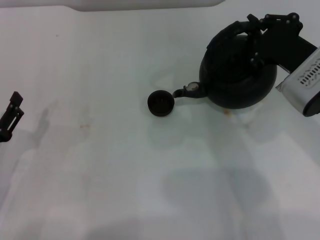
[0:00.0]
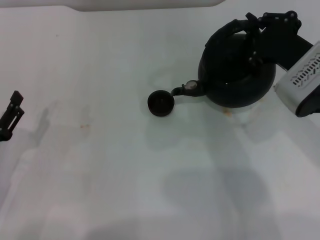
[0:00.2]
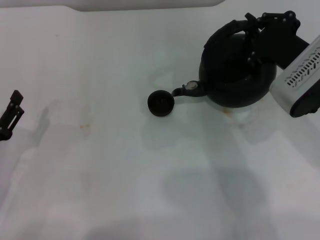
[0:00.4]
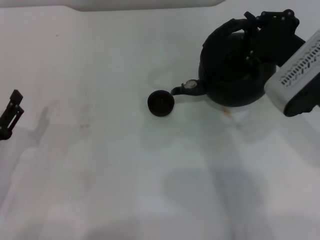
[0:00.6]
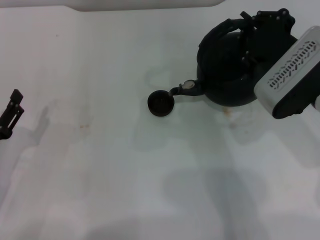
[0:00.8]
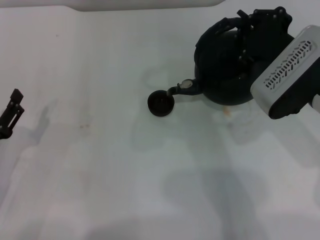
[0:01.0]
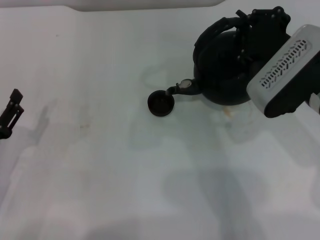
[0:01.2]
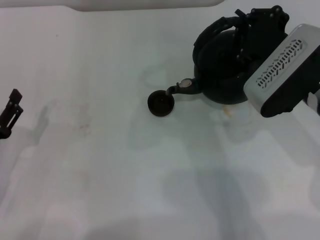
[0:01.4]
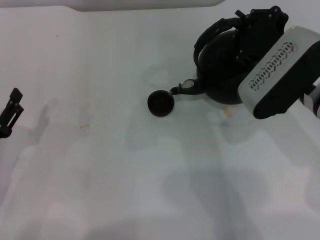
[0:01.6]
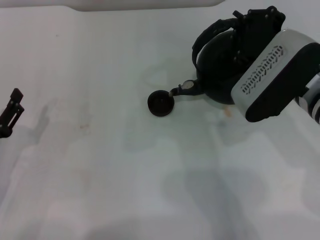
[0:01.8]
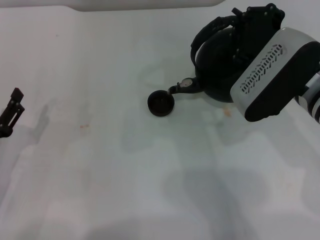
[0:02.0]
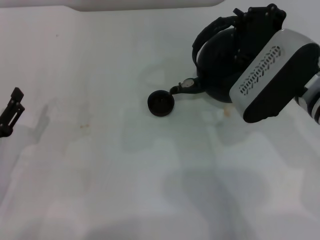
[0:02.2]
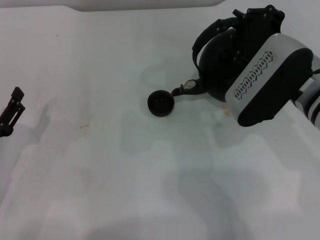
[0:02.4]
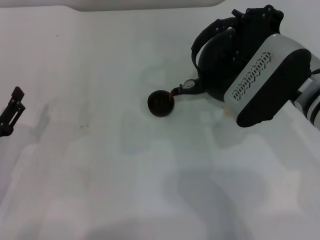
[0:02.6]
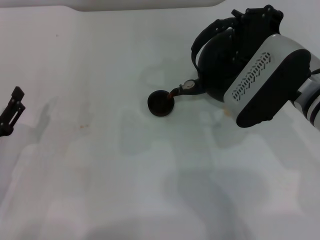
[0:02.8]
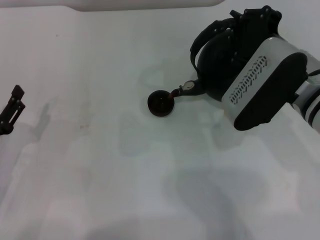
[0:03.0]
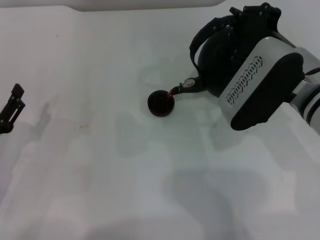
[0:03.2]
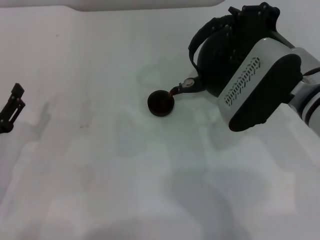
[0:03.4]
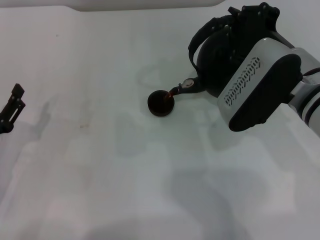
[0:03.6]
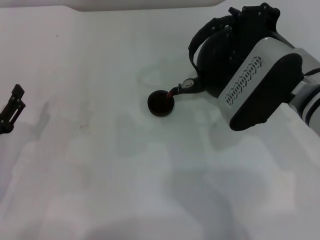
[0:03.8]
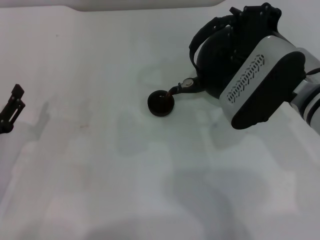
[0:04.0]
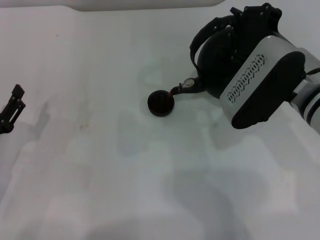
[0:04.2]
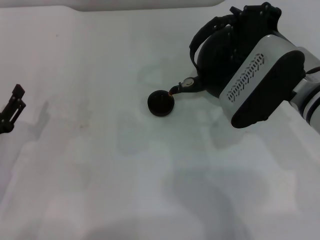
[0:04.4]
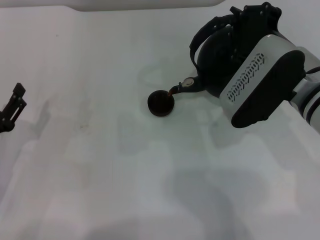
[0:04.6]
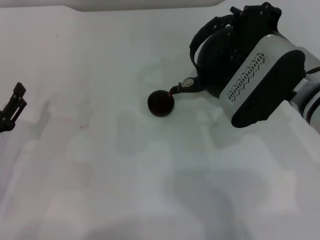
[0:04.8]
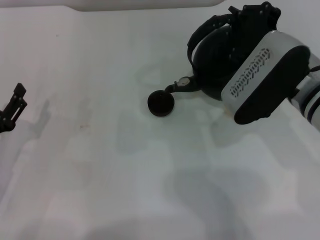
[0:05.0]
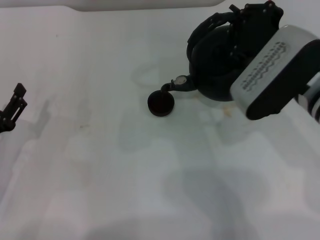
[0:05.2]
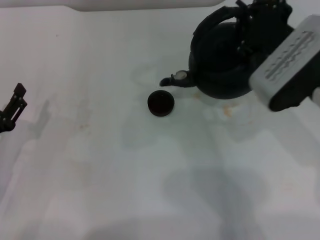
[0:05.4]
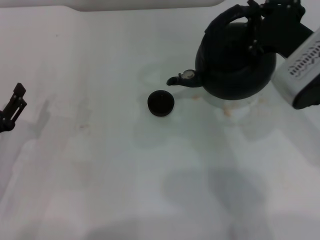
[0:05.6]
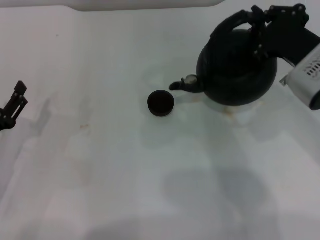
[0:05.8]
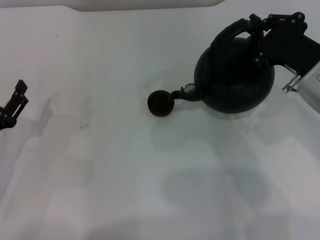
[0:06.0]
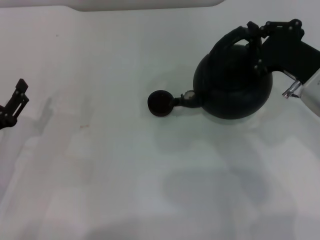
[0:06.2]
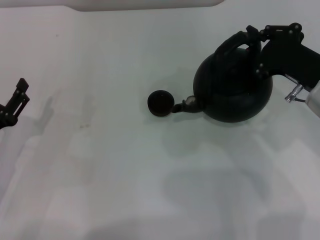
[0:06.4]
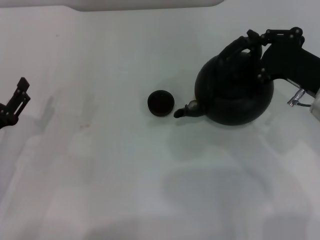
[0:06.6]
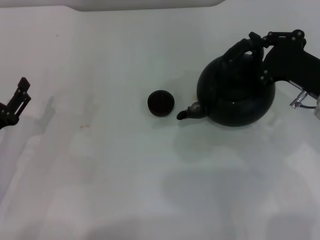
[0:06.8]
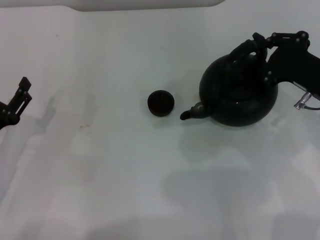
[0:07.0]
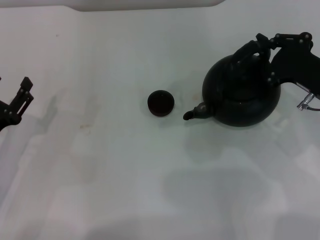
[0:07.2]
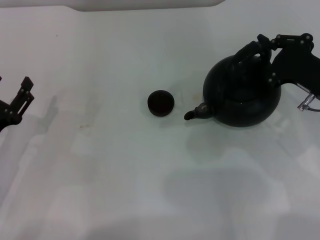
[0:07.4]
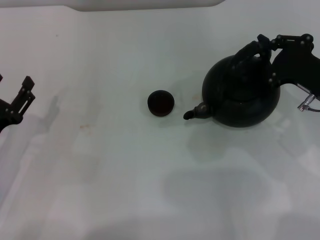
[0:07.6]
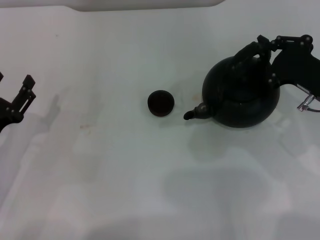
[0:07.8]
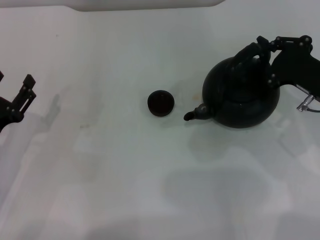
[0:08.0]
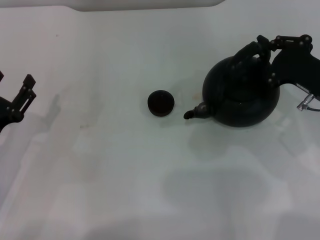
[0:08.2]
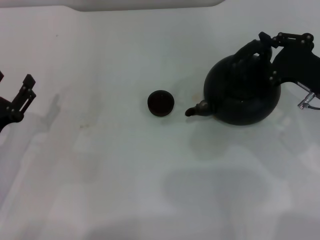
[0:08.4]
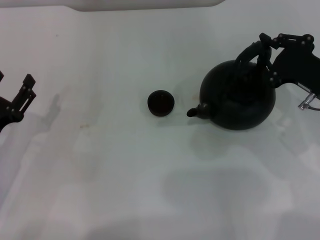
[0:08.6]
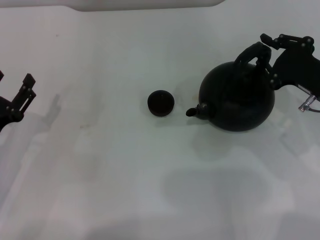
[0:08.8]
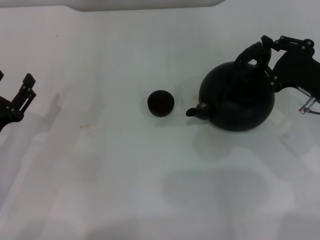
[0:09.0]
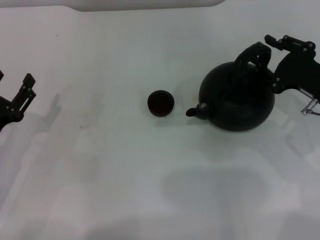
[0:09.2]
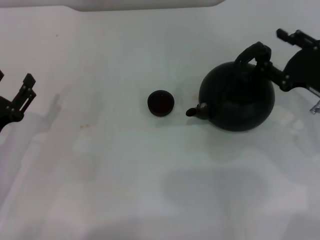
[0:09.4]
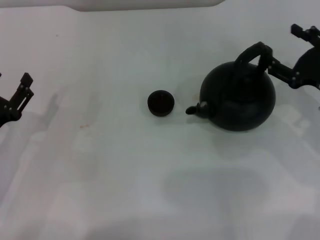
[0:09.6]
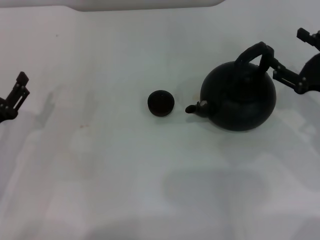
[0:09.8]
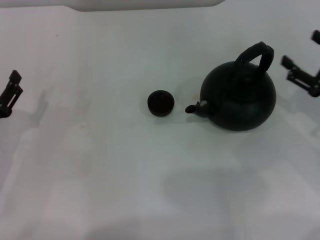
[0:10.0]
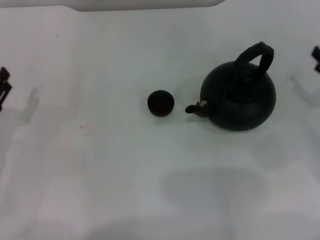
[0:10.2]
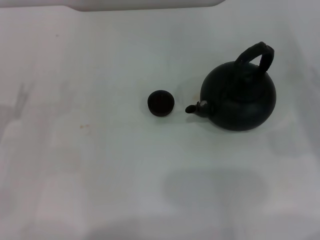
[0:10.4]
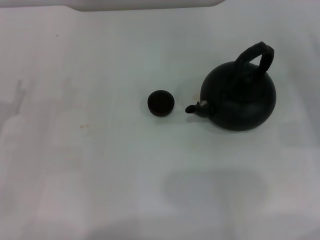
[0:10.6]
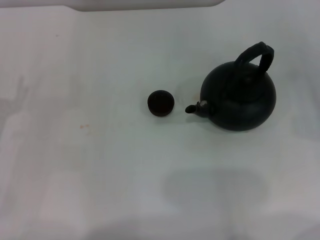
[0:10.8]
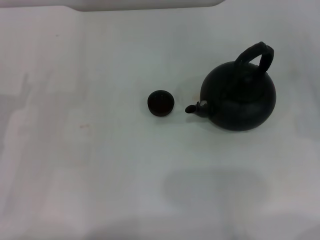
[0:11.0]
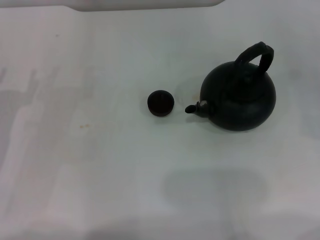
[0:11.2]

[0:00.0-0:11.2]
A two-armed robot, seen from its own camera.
Task of the whole recording: Grasp the handle of the teapot with one hand and pour tea into the teacup.
Step, 0:00.0 to 0:05.4: Pour tea into the teacup with the right gripper.
Step, 0:05.6 to 0:09.8: Put down the teapot with the right gripper.
0:00.0 to 0:01.6: There are only small adjustments of the grippers.
0:01.6 to 0:03.2: There are only small adjustments of the grippers.
0:03.2 to 0:04.8: Neither gripper changes place.
0:04.8 to 0:06.4: The right gripper shifts some 10 cm to the right.
0:06.4 to 0:08.0: The grippers stay close to where they were, moving slightly.
0:08.0 to 0:09.6: The right gripper opens its fingers.
0:09.6 to 0:11.2: The right gripper goes some 15 cm to the right.

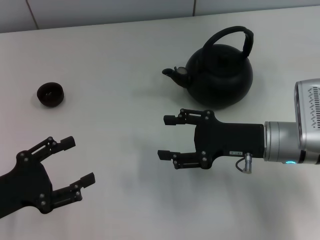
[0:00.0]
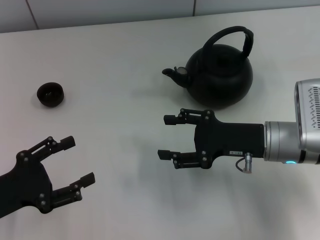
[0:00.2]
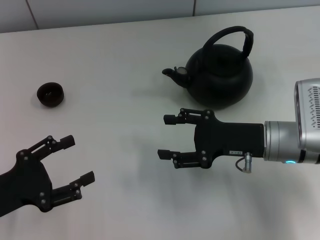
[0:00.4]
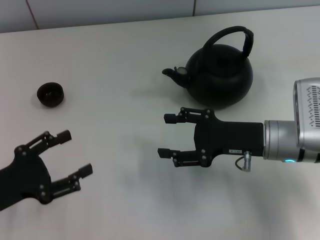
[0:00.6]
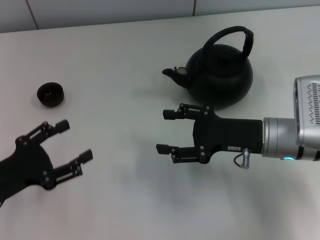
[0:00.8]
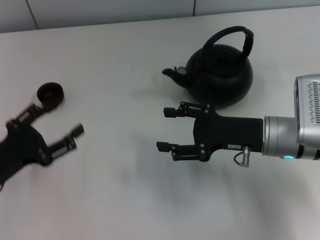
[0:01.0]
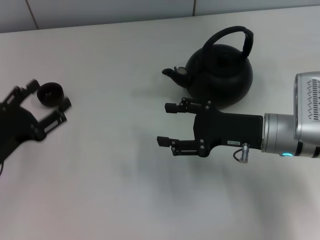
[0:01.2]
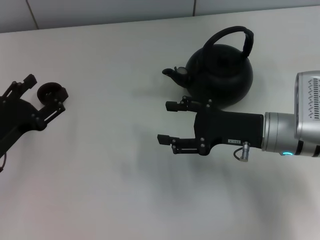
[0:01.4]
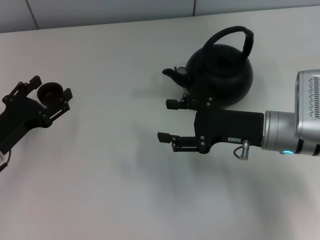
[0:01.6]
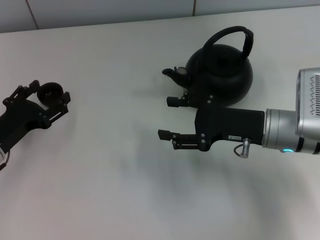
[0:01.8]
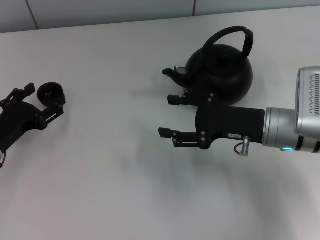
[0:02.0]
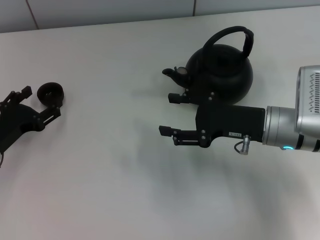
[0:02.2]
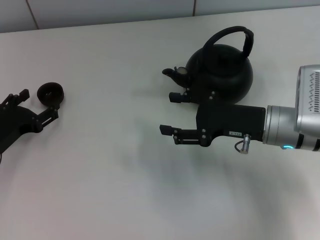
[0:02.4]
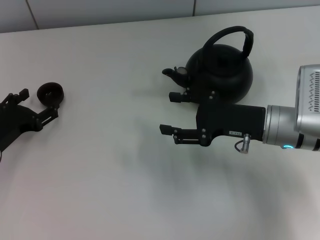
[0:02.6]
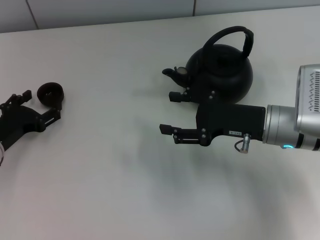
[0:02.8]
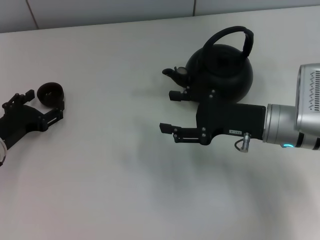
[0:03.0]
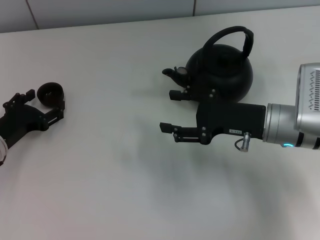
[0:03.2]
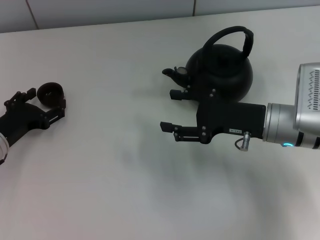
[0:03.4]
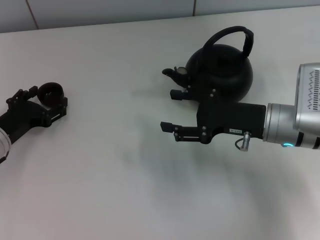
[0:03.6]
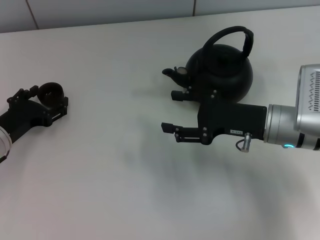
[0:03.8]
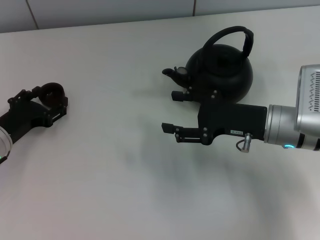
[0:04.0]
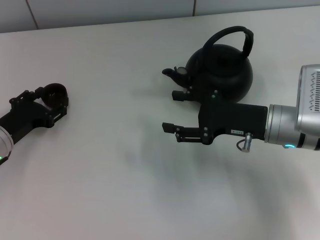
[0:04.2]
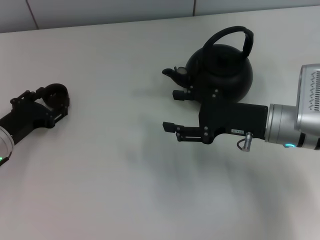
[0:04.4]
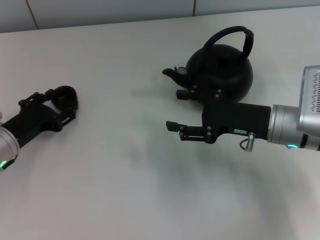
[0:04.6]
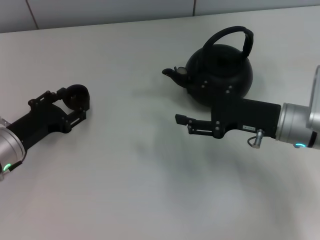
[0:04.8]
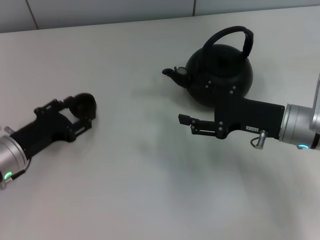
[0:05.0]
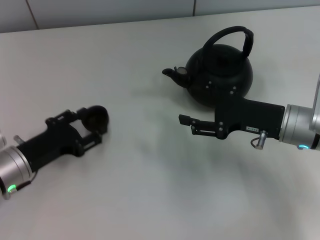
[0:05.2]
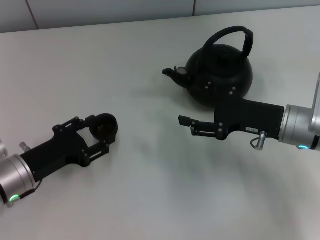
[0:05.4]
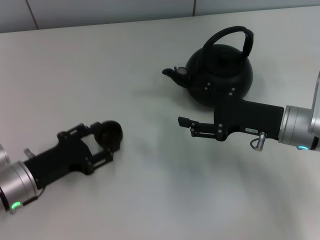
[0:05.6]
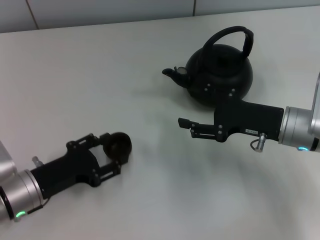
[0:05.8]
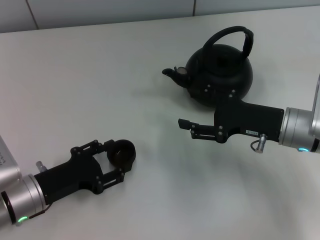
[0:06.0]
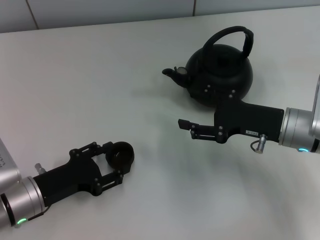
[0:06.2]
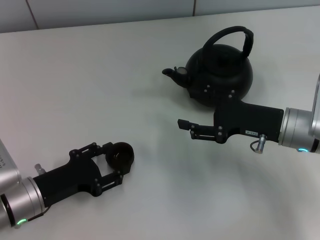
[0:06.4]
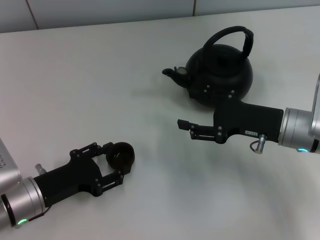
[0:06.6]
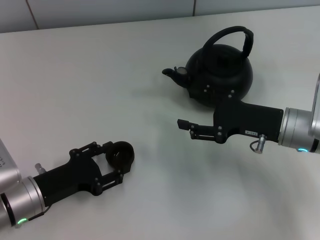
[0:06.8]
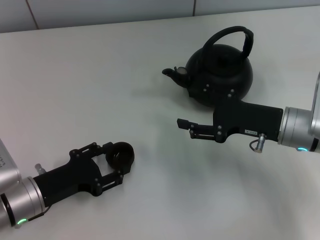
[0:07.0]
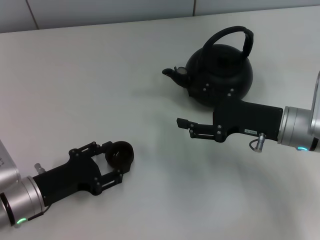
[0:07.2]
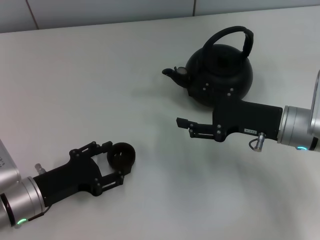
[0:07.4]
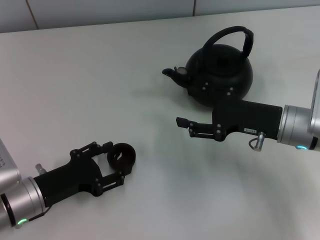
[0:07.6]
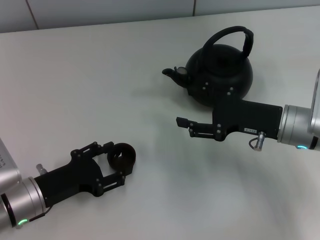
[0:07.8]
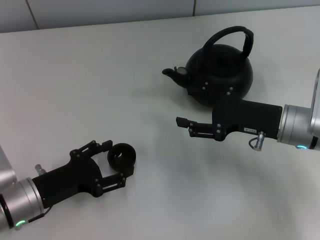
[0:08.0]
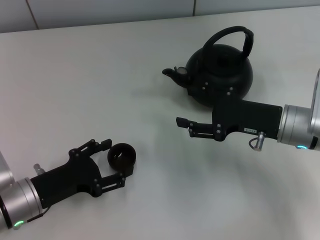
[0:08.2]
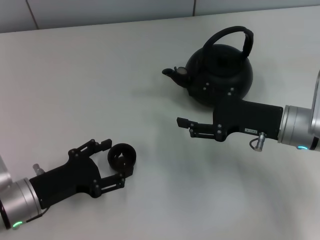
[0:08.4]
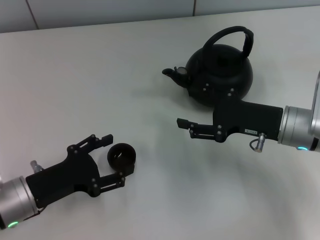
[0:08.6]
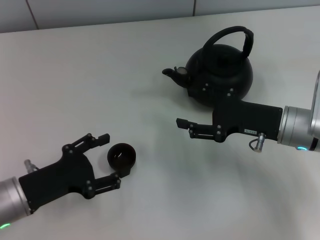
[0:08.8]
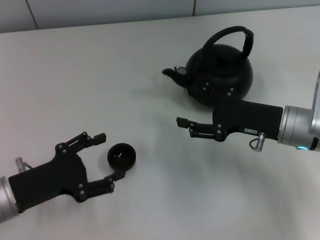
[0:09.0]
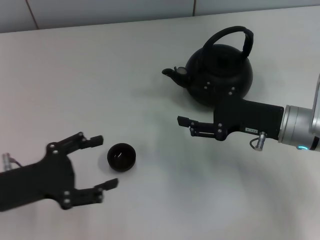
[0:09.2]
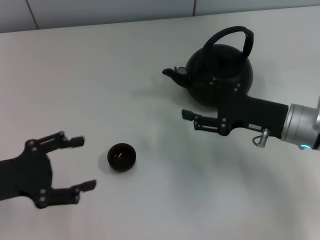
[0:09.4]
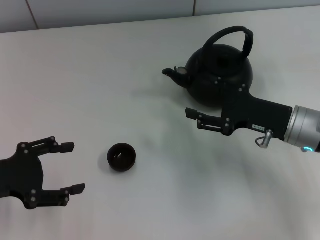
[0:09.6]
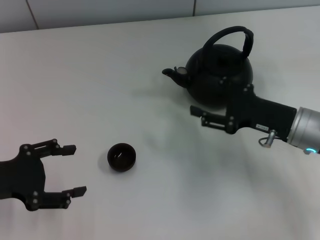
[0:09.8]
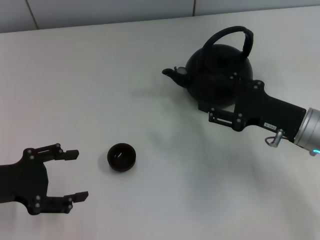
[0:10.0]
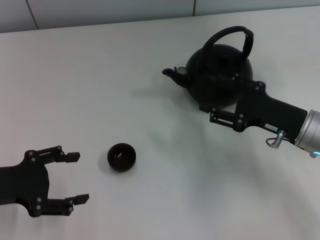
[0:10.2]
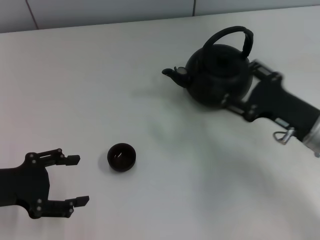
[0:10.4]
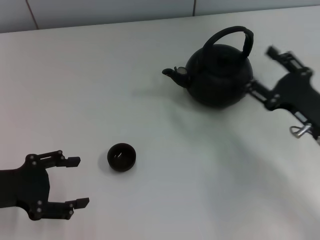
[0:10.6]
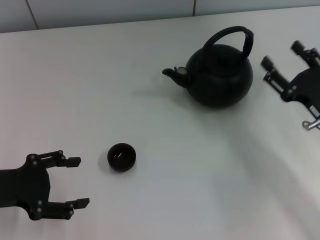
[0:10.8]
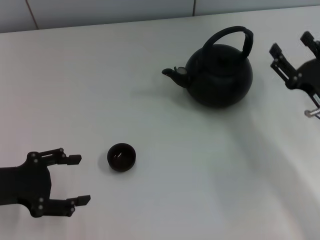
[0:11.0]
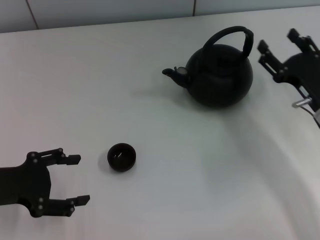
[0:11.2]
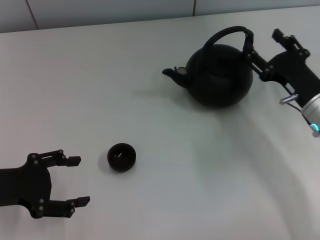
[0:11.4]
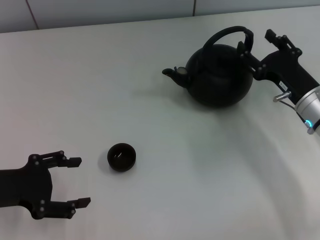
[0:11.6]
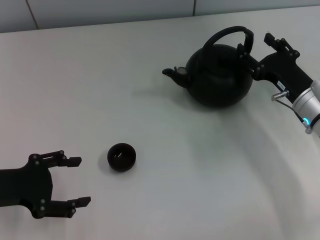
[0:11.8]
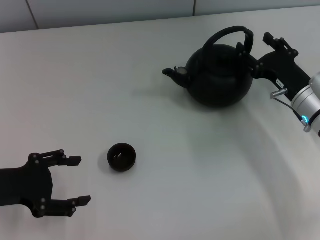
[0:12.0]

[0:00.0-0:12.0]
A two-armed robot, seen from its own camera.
Task of the whole recording: Grasp the handle of the teapot with one hand and pour tea into the teacup.
Step, 0:00.0 to 0:04.8: Pick up the teacup with the left gripper.
Step, 0:05.0 to 0:08.6: Place the teacup in the center of view with the left gripper.
0:00.0 to 0:01.6: The left gripper goes about 10 cm forward.
0:01.6 to 0:03.0: The grippers stay close to where they were, moving slightly.
0:03.0 to 0:04.4: The left gripper closes up.
0:04.4 to 0:06.0: The left gripper travels backward by some 10 cm.
0:06.0 to 0:07.6: Both grippers stay about where they are.
0:07.6 to 0:09.0: The left gripper opens.
0:09.0 to 0:10.4: The left gripper ends up roughly 5 cm from where it was.
0:10.4 to 0:12.0: The right gripper shifts about 5 cm forward.
